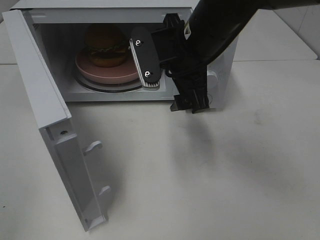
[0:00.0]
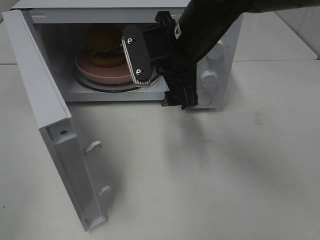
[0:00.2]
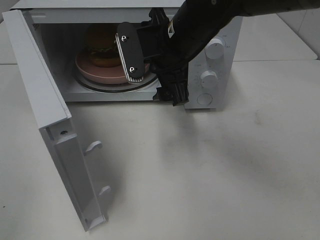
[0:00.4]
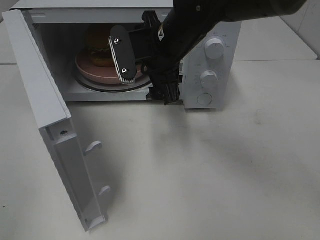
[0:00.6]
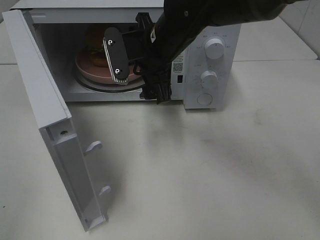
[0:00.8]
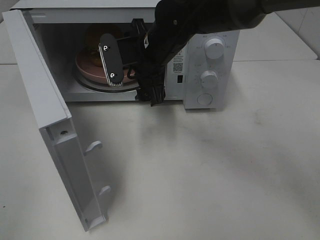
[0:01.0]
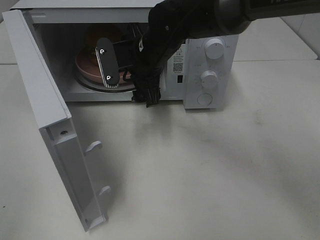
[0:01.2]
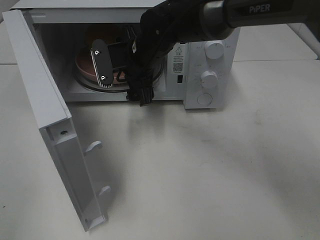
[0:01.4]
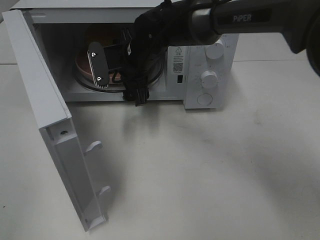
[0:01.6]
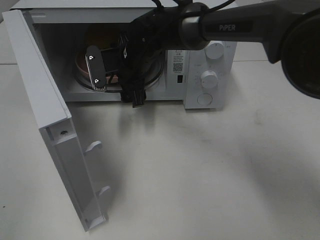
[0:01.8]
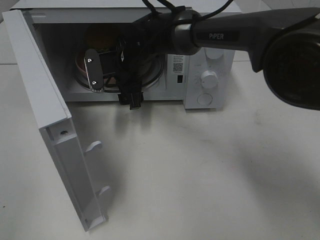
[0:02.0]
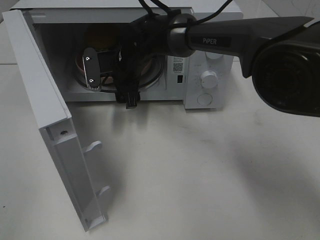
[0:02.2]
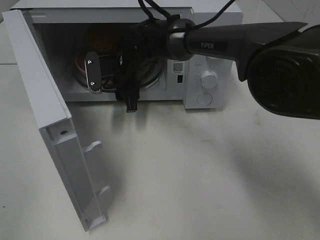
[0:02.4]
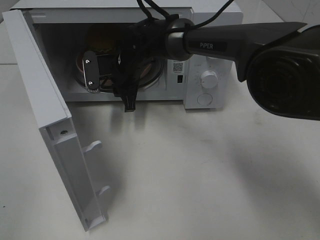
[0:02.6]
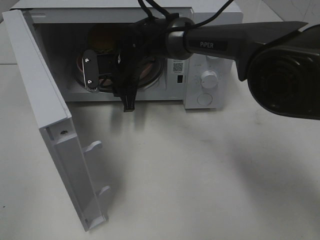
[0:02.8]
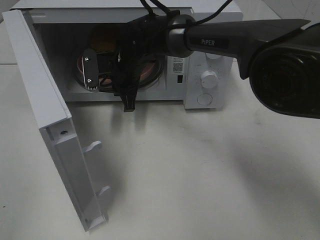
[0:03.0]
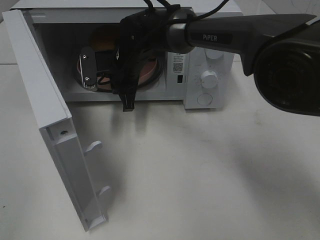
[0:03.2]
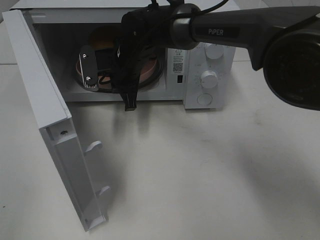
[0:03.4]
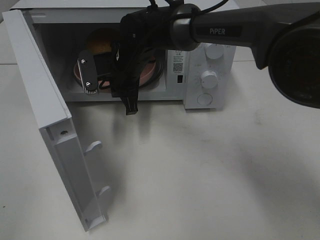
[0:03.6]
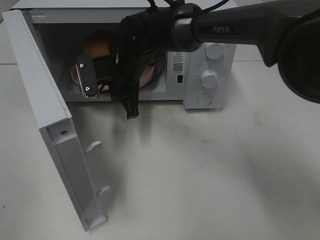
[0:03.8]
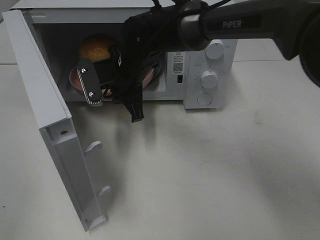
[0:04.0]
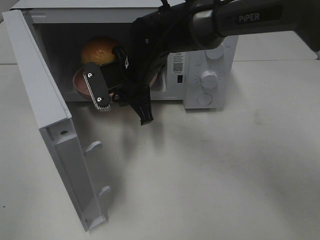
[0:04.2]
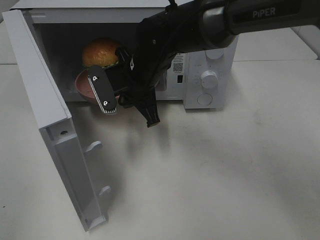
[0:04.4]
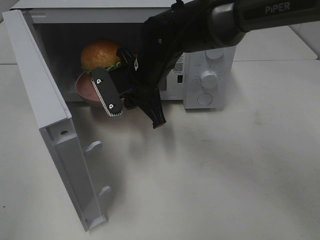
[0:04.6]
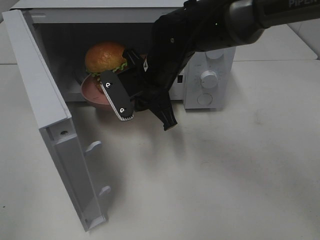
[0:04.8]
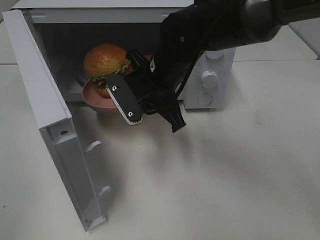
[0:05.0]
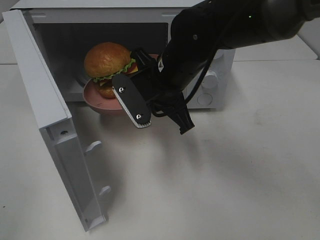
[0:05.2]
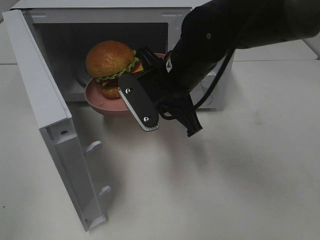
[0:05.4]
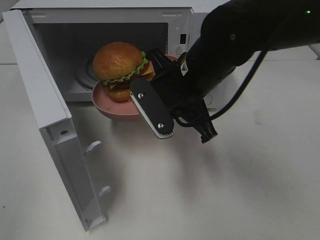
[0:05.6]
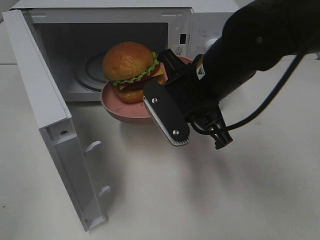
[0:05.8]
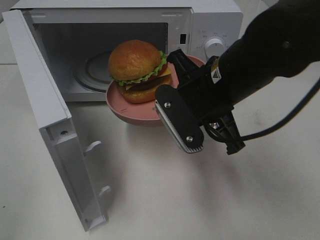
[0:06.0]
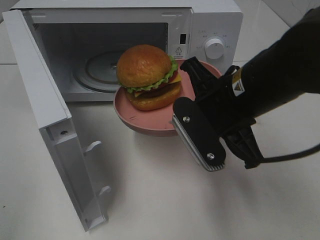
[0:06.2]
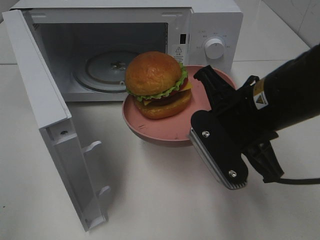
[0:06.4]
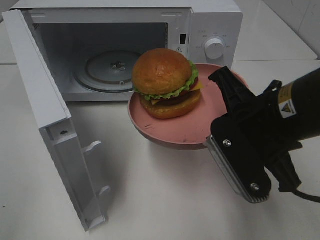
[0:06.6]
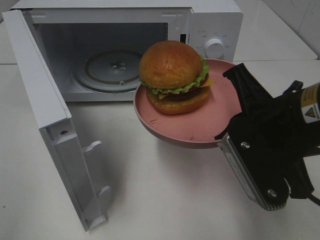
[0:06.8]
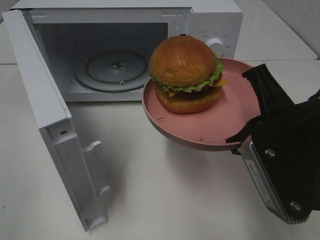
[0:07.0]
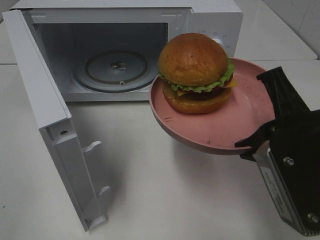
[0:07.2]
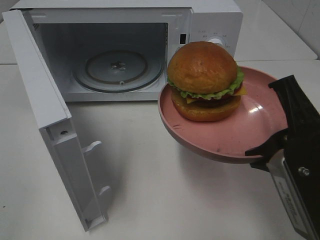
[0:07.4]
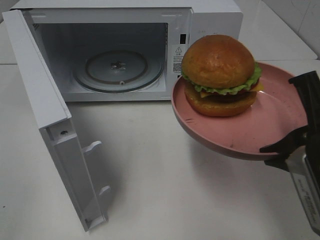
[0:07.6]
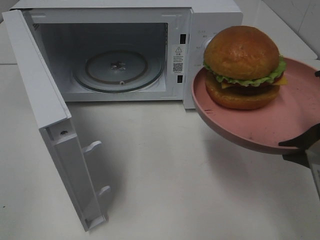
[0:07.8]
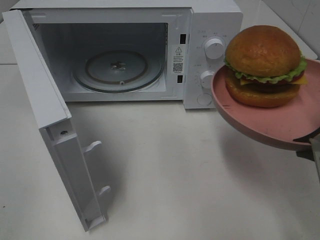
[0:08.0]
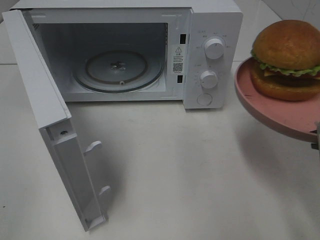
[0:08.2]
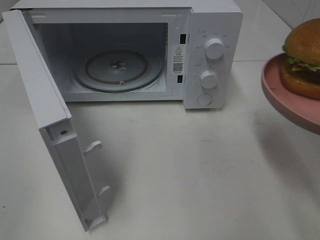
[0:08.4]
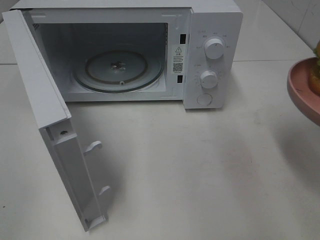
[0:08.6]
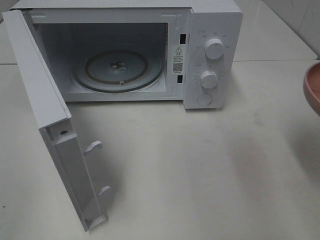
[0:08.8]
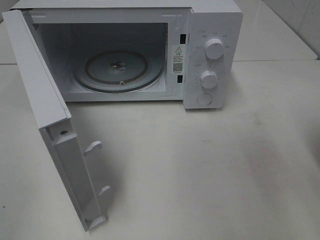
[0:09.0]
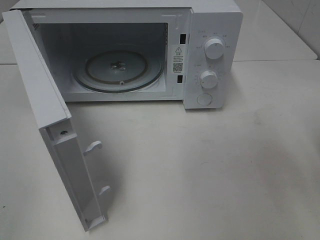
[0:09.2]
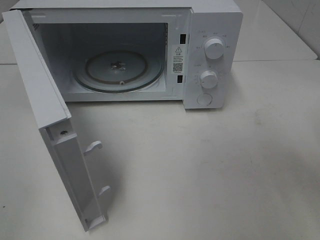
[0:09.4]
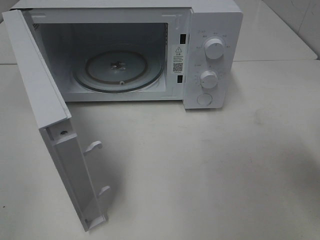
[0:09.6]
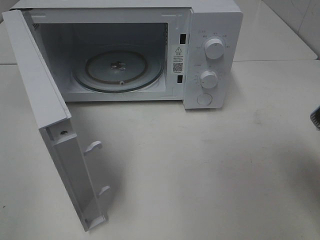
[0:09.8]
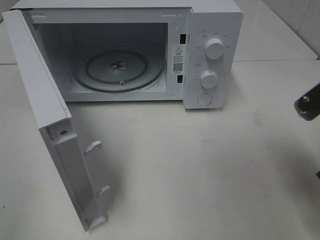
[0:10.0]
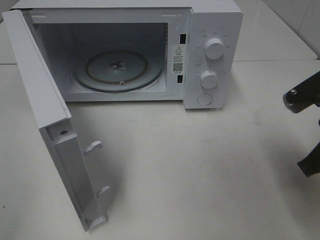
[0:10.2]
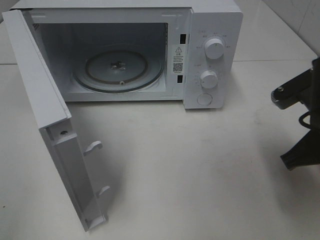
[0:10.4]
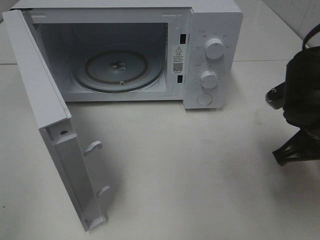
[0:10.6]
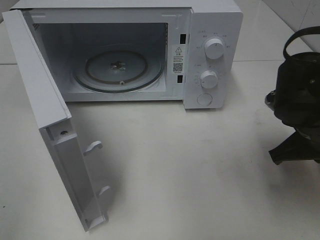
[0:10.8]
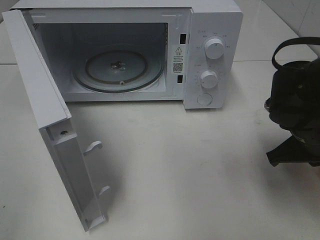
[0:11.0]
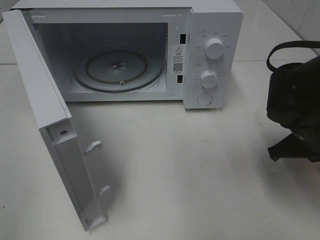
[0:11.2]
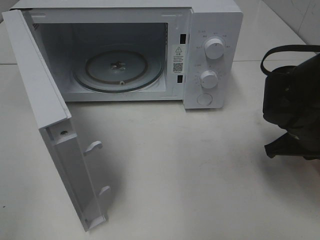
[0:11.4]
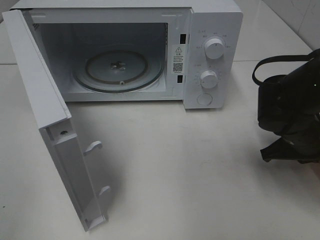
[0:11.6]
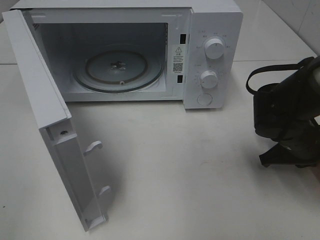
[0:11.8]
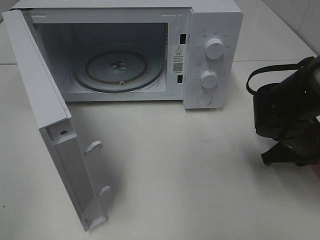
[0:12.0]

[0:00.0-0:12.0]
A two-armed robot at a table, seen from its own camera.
Task of the whole recording: Heat the burger.
Step, 0:00.0 to 0:03.2: Right hand: grab the plate with the hamburger.
0:00.0 to 0:01.6: The right gripper shifts about 15 cm forward, to the left and downward.
0:01.6 to 0:03.0: The right gripper closes up.
0:03.0 to 0:04.4: The right gripper moves backward, approximately 5 cm.
0:04.4 to 0:06.0: The right gripper travels backward, to the right and upward by some 15 cm.
0:06.0 to 0:07.6: The right gripper moves backward and to the right, some 15 cm.
0:07.6 to 0:09.0: The right gripper heads to the right, covering roughly 5 cm.
0:09.0 to 0:10.4: The right gripper shifts some 10 cm forward, to the left and downward.
0:10.4 to 0:12.0: The right gripper heads downward and forward, covering some 15 cm.

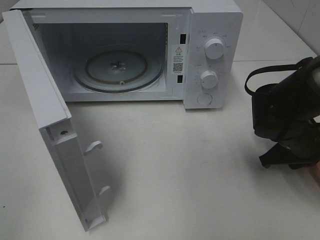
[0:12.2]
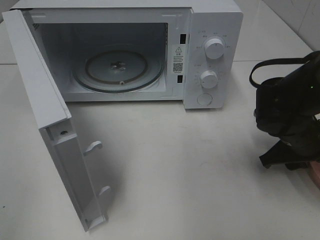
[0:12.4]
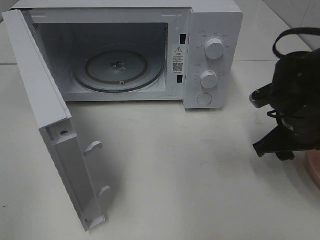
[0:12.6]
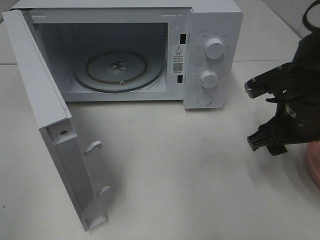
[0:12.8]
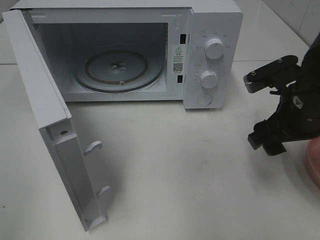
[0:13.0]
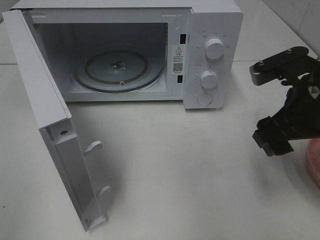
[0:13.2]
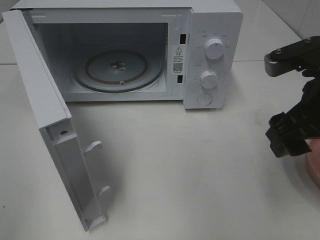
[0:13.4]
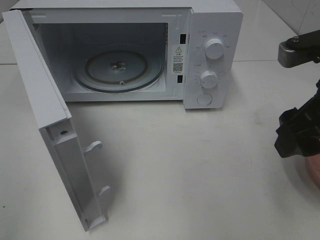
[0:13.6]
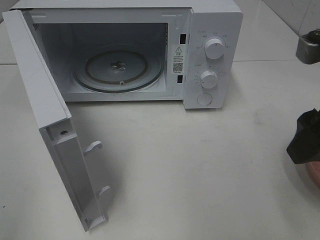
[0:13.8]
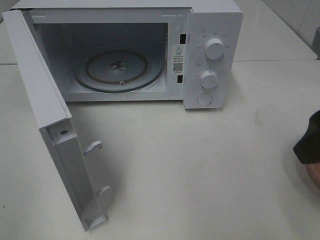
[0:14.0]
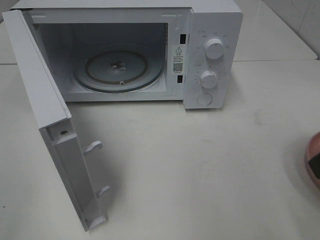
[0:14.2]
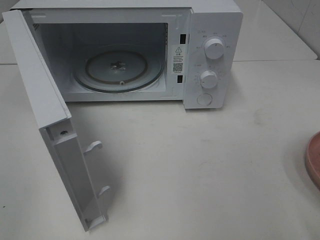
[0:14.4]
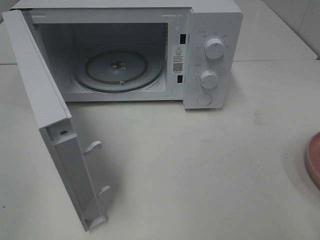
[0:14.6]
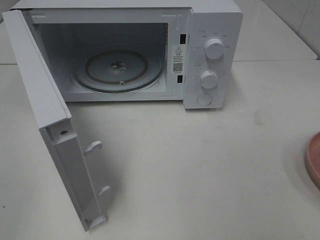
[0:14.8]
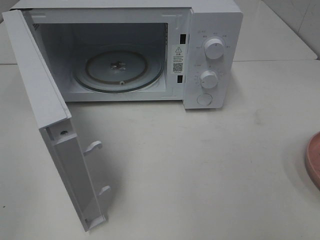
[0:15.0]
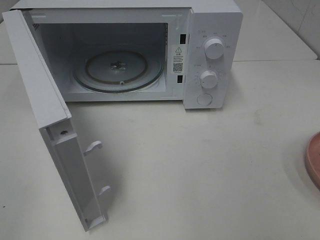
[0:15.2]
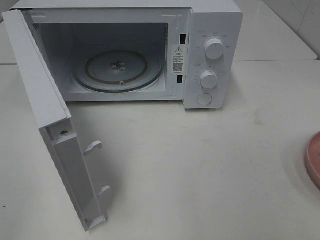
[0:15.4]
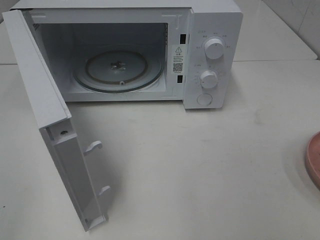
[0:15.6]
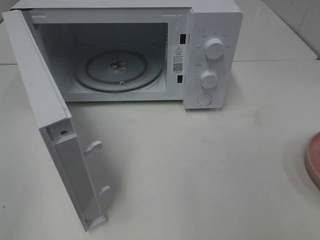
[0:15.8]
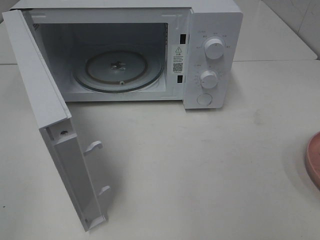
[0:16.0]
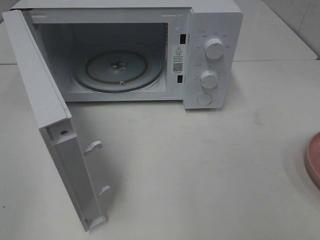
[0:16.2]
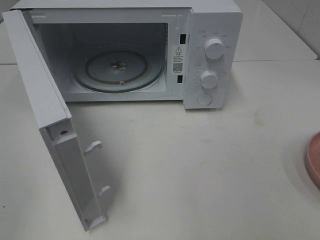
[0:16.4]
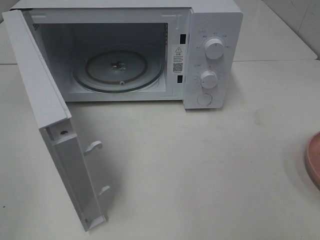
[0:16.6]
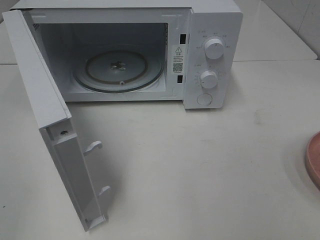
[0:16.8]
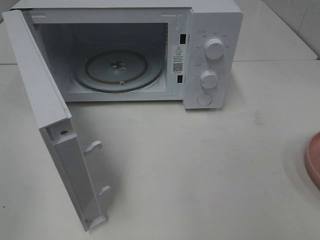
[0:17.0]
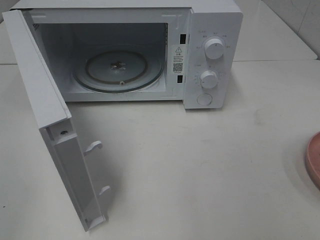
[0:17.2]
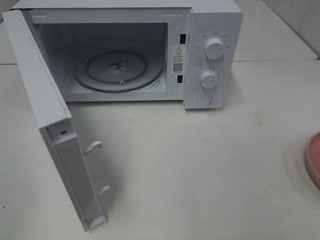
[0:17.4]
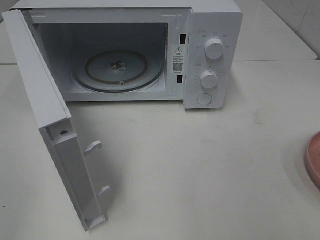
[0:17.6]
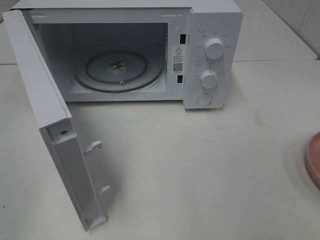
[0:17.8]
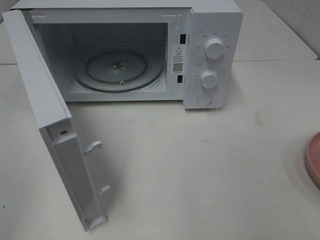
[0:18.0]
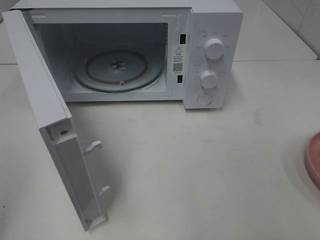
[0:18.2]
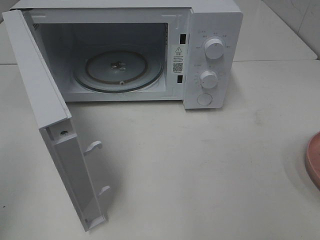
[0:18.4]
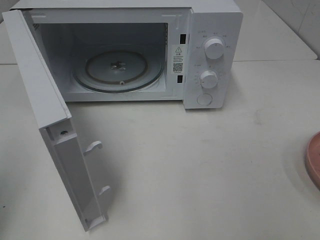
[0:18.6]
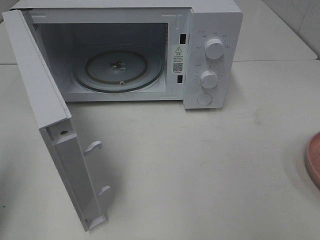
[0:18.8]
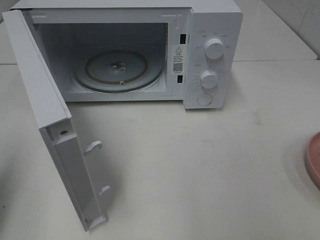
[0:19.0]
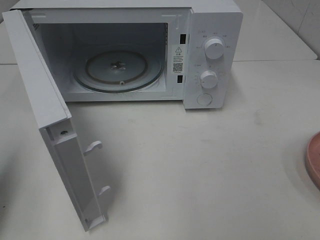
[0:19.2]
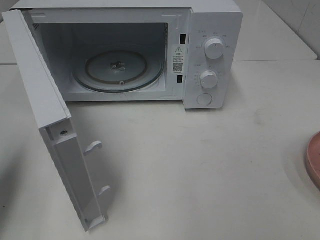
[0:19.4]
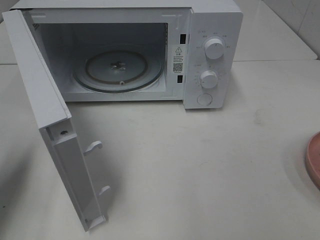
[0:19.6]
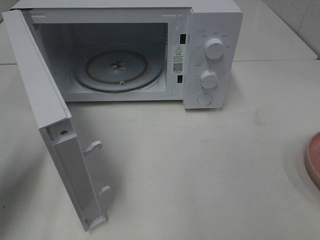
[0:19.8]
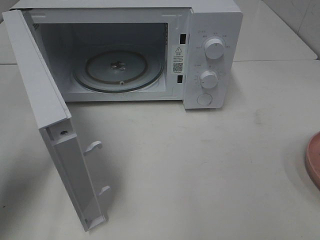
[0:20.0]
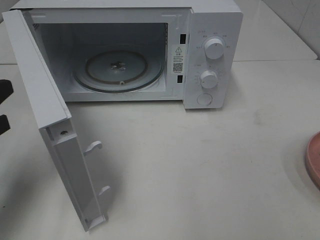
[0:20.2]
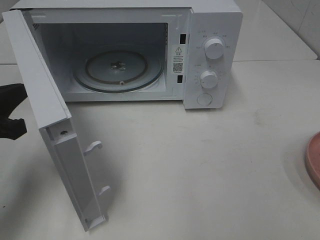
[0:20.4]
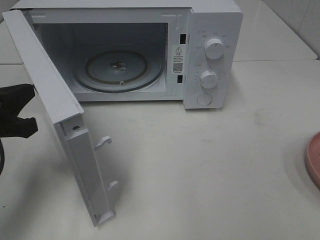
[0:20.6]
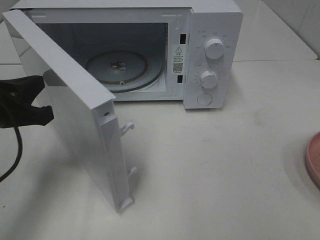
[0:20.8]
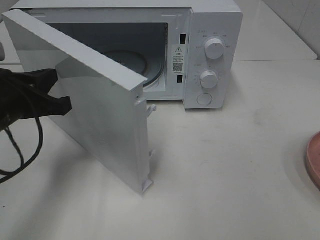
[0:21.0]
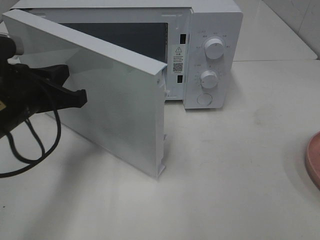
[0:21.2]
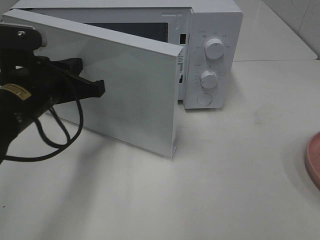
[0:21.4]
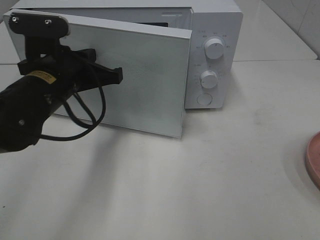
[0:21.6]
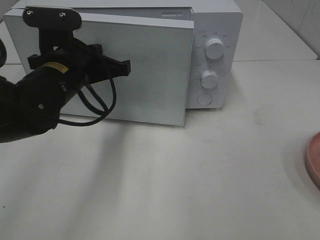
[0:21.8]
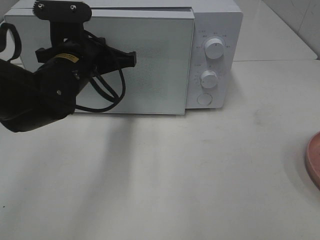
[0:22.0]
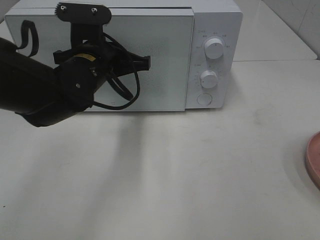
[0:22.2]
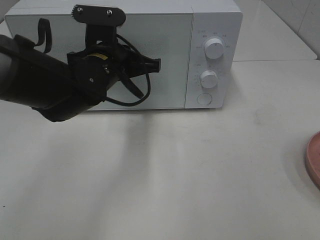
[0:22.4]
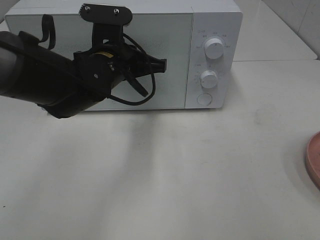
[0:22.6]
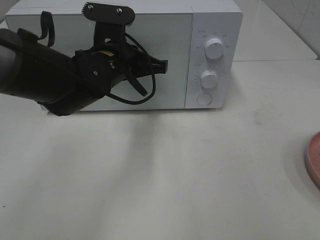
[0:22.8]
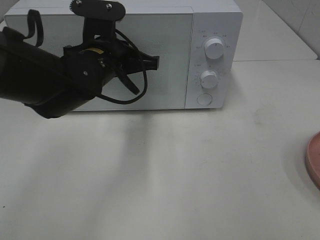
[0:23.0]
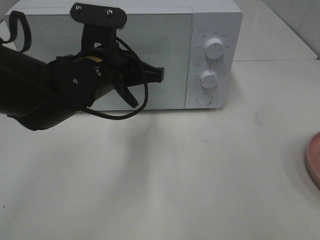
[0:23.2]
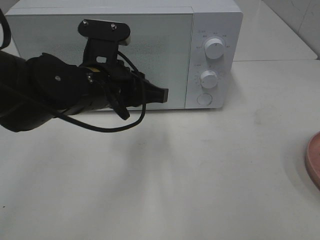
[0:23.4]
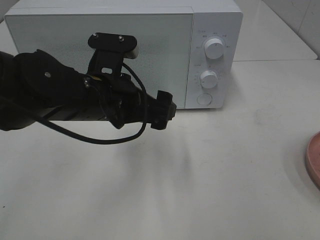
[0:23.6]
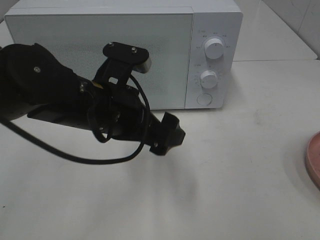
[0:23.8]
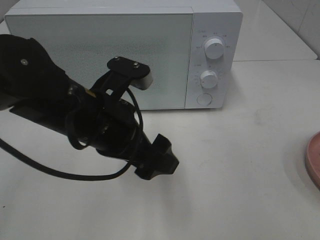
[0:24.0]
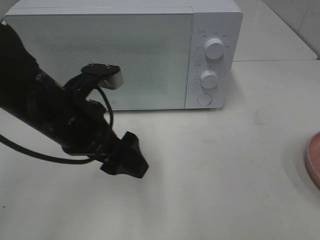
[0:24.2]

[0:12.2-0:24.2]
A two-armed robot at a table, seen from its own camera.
Task of the whole recording: Heat the burger.
Step, 0:12.8 to 0:23.6: Left hand: close the microwave door.
0:12.2 to 0:13.8: The right gripper is displaced upward and backward by some 20 cm.
0:13.8 to 0:15.2: The right gripper heads backward and to the right, covering approximately 15 cm.
0:18.2 to 0:19.8: The left gripper travels forward and downward by some 15 cm, and closes up.
0:19.8 to 0:21.2: The left gripper goes roughly 10 cm to the right and forward.
0:21.2 to 0:22.6: The left gripper shifts roughly 15 cm to the right and forward.
0:22.6 to 0:24.2: The left gripper moves backward, approximately 10 cm, and opens its fingers.
